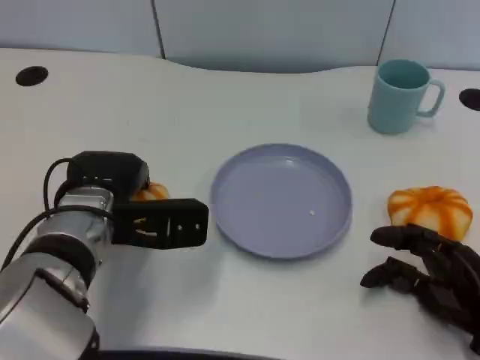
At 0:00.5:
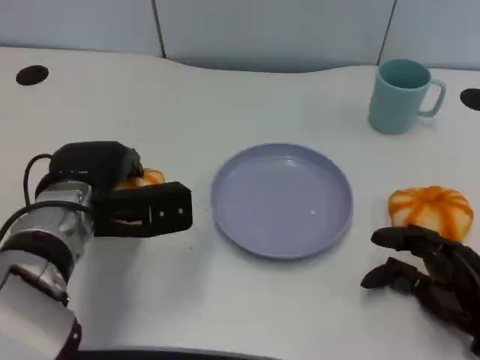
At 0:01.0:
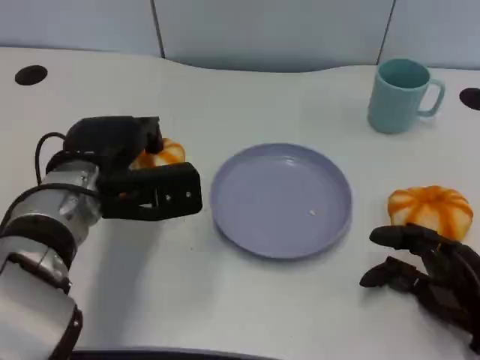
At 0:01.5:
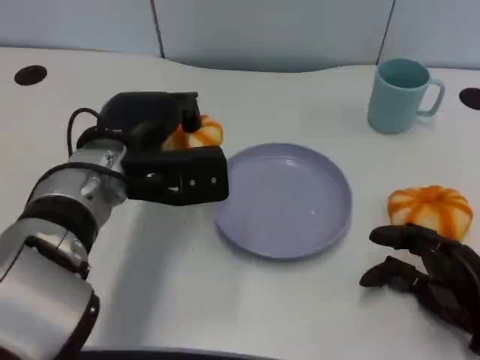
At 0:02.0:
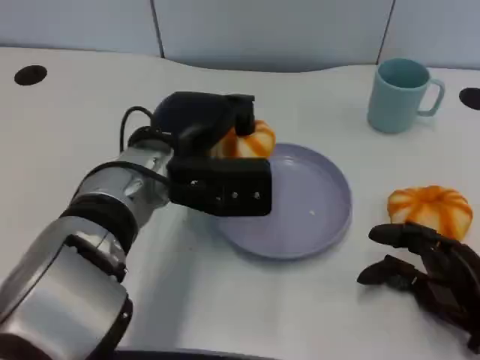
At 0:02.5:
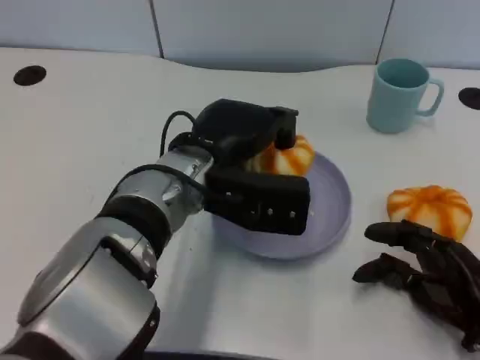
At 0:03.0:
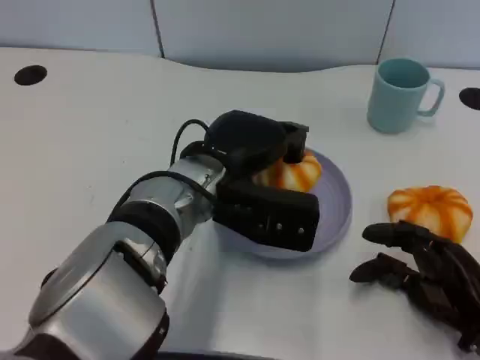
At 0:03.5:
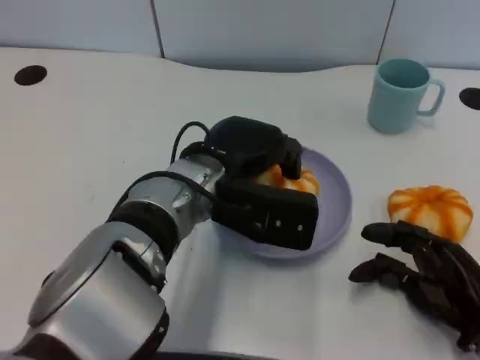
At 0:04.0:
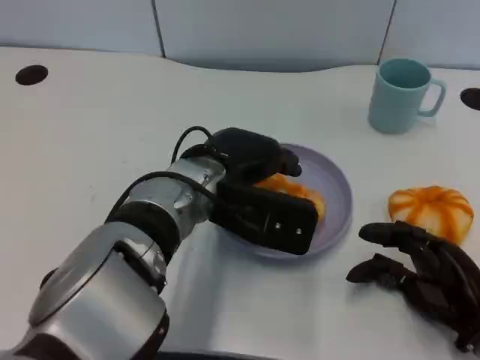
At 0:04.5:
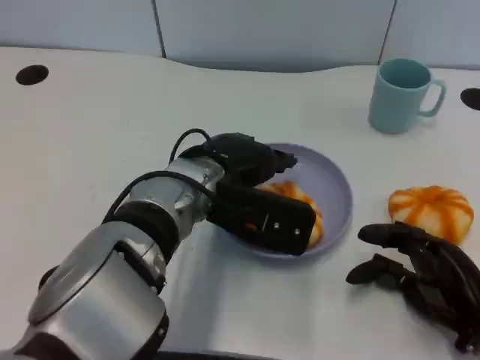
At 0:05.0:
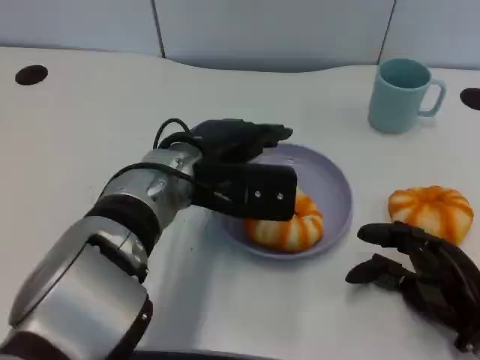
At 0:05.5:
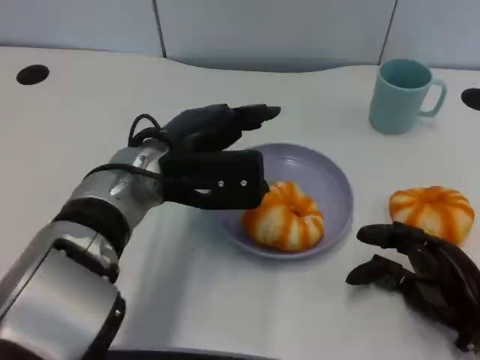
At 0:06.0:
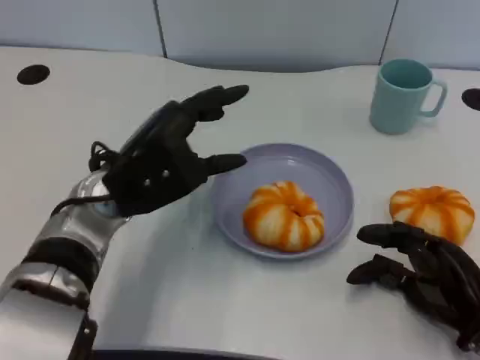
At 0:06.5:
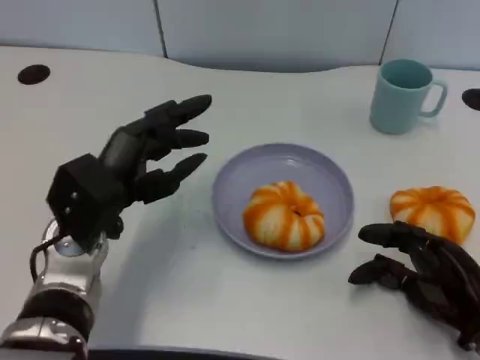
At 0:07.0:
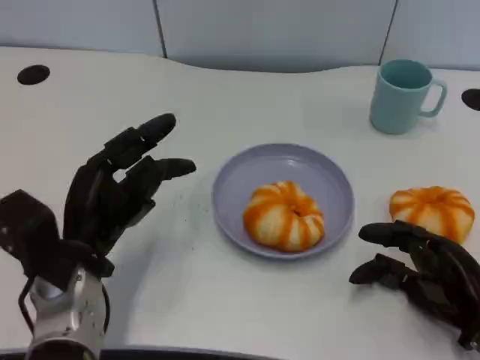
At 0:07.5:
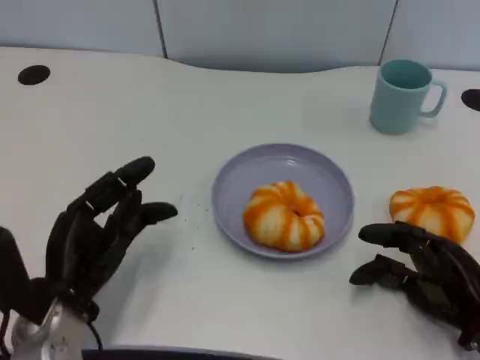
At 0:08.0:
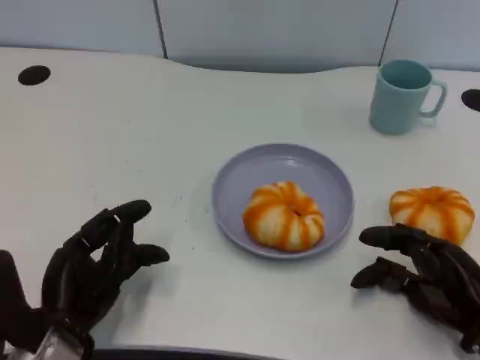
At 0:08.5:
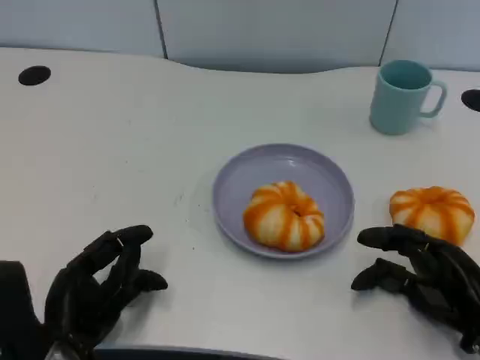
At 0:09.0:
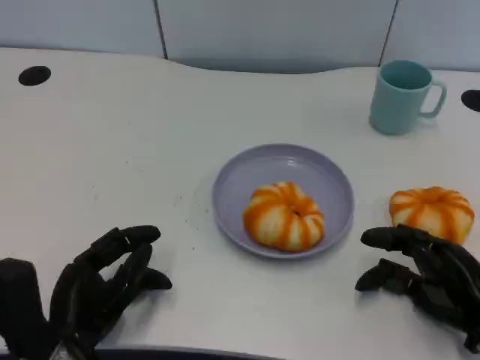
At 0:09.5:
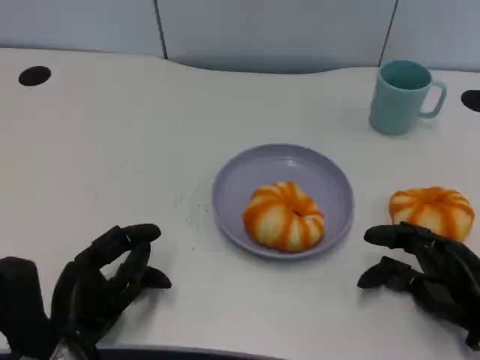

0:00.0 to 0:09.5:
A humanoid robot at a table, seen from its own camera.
Task of the whole recording: Grasp the bread from the table and place it into the plate.
0:00.0 to 0:02.0: The left hand shifts some 5 cm to the right.
0:04.0 to 0:05.5: The left hand shifts about 5 cm to the left.
0:05.5 to 0:07.5: The left hand goes approximately 15 cm to the left, downward and backward.
0:07.5 to 0:09.5: The hands stay close to where they were, moving slightly.

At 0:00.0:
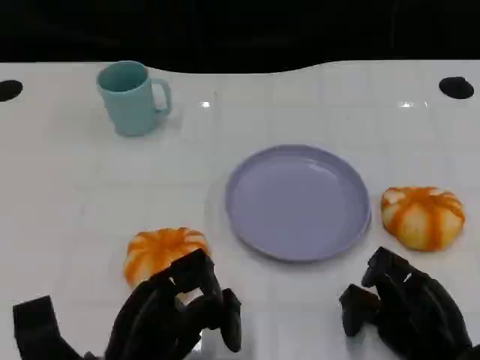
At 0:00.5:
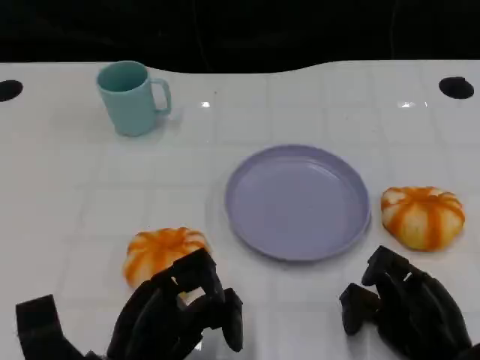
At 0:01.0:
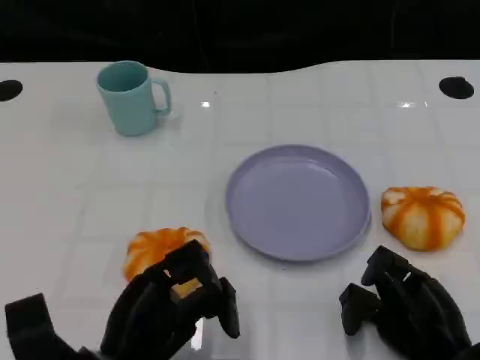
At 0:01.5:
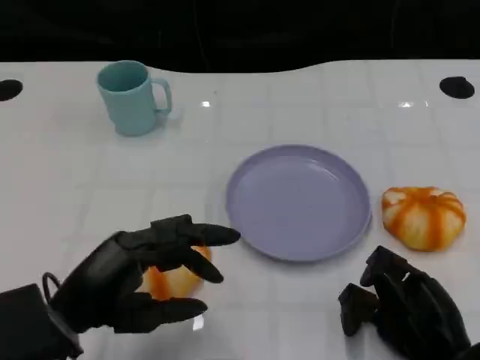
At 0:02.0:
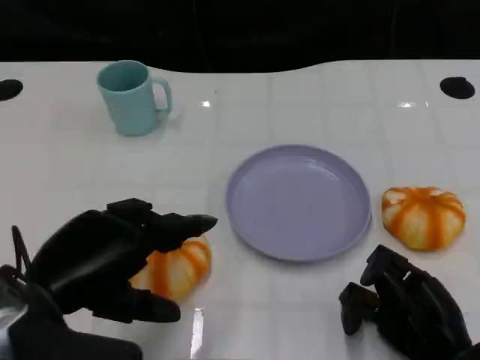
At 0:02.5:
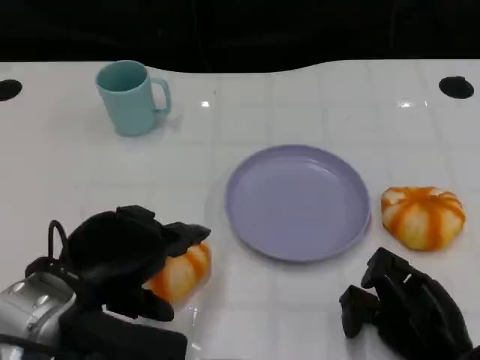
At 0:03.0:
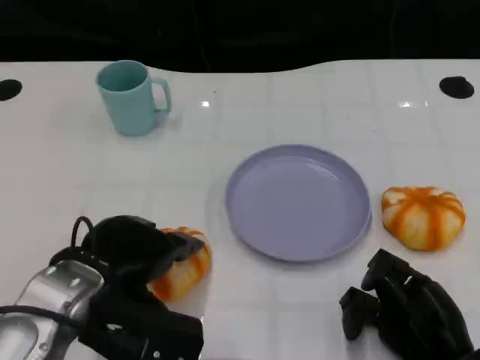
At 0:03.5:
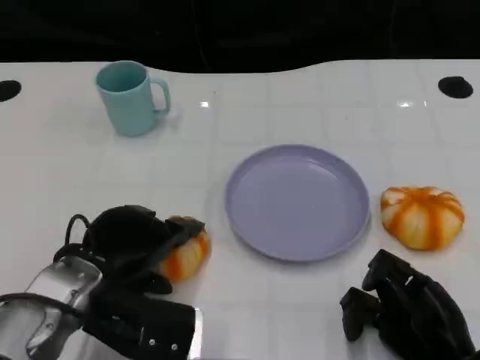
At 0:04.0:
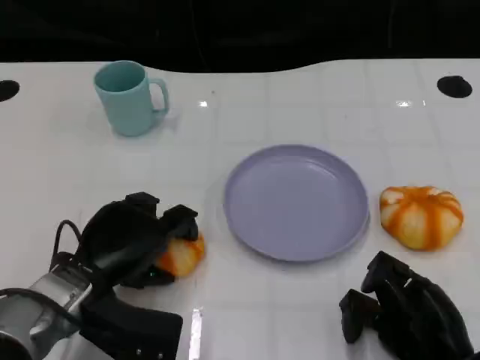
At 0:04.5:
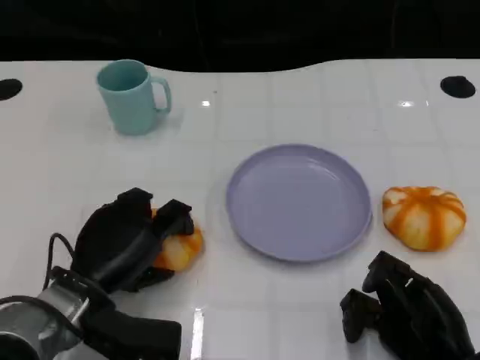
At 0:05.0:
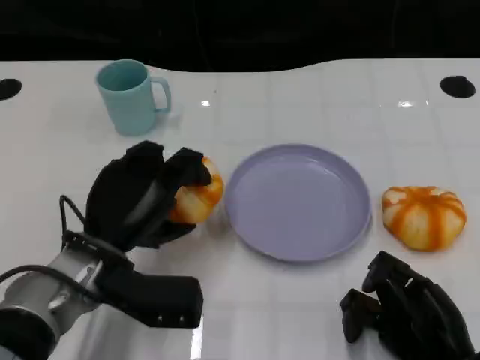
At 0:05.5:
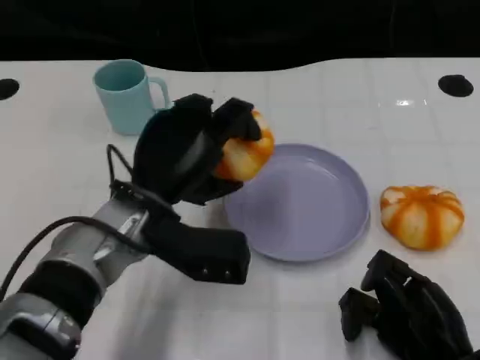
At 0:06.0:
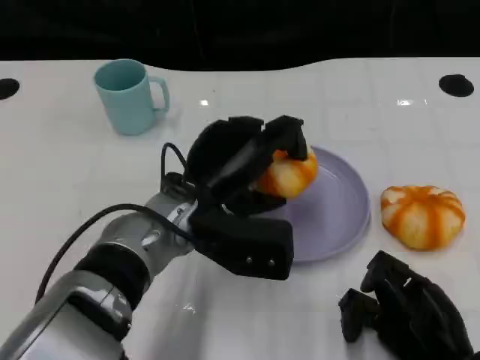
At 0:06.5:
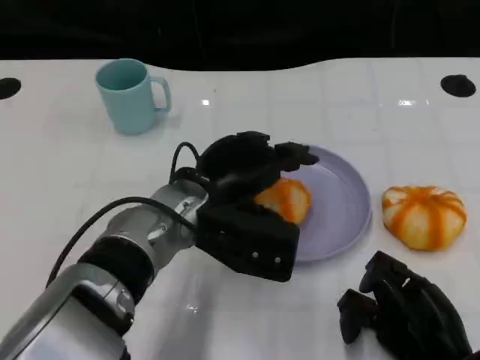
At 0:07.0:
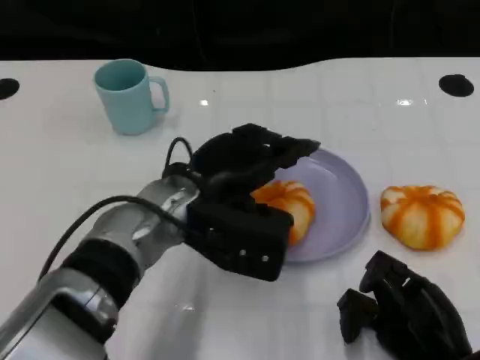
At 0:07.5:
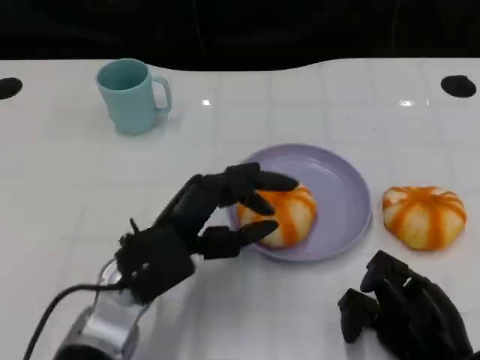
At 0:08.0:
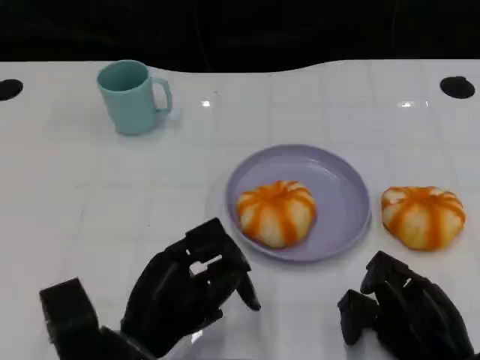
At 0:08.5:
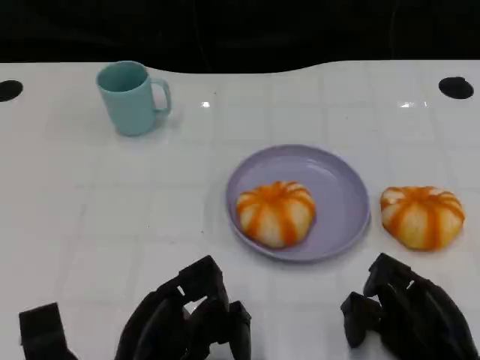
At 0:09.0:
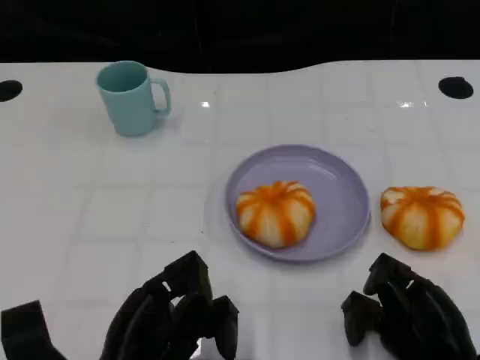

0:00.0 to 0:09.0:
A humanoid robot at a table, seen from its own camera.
Task of the whole recording: Grasp the bread from the table and place it into the plate.
0:00.0 to 0:02.0: The left hand shifts roughly 10 cm upward and to the left.
0:02.0 to 0:04.5: The left hand travels downward and forward by about 10 cm.
0:04.5 to 0:07.0: The left hand travels to the right, upward and forward by some 15 cm.
0:07.0 to 0:09.0: The left hand heads backward, to the left and downward, covering roughly 20 cm.
